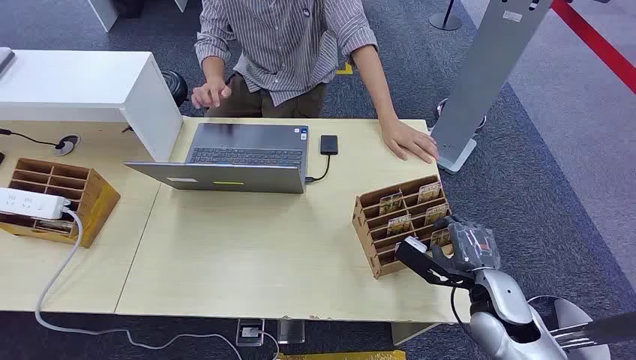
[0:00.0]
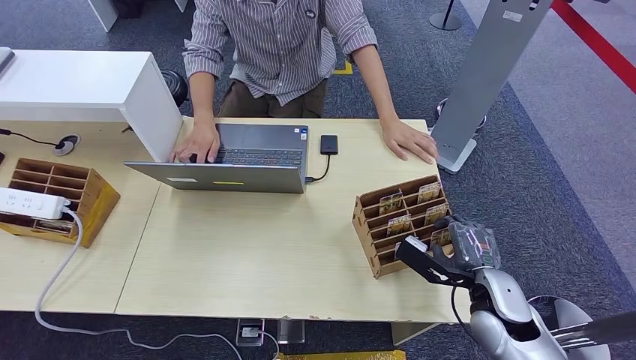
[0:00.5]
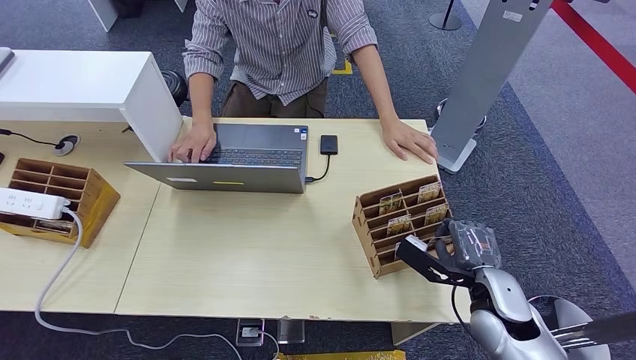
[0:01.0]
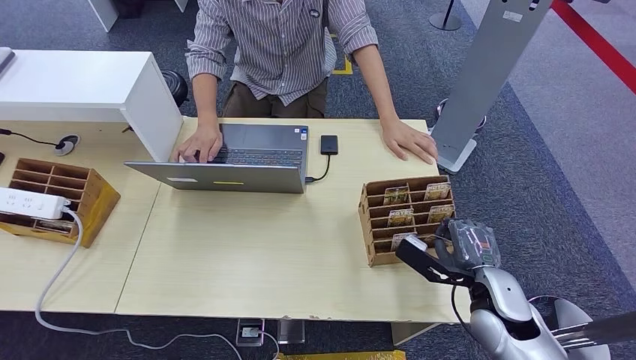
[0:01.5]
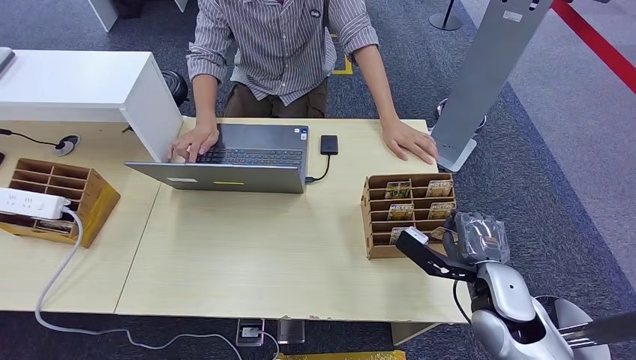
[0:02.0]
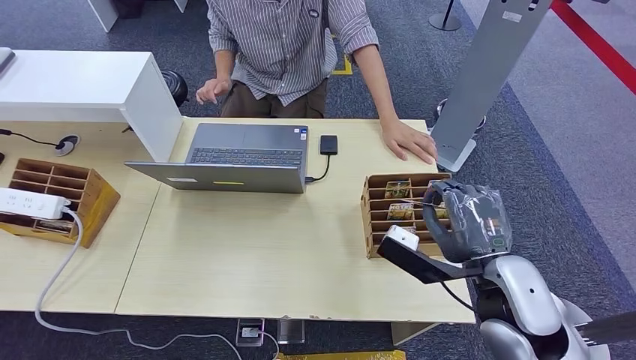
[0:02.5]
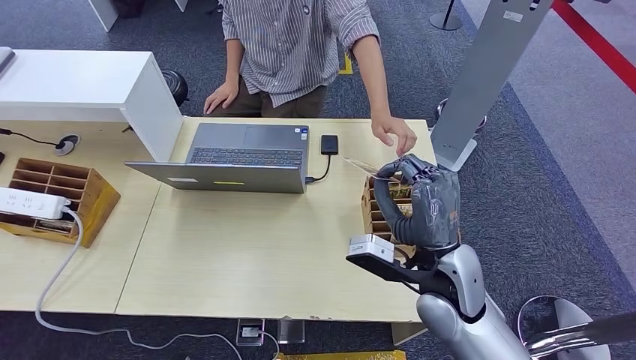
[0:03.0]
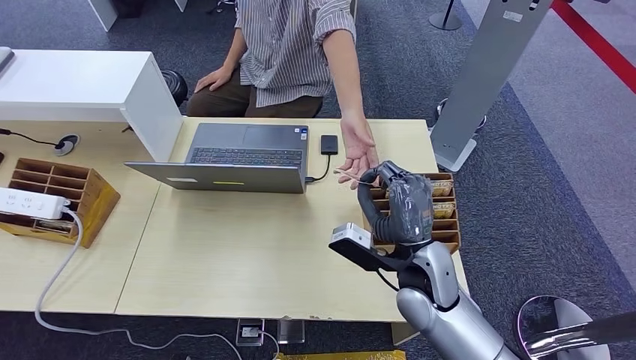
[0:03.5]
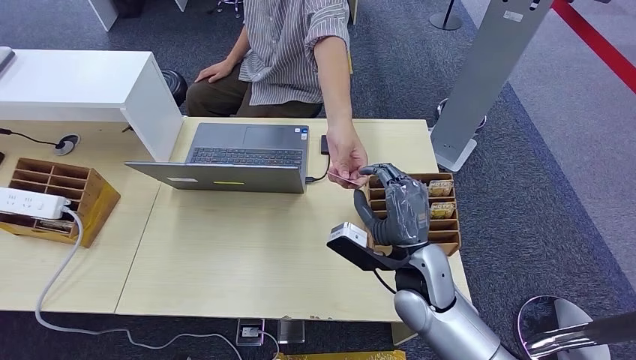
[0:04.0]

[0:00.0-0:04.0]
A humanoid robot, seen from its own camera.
Step, 0:00.0 to 0:02.0: Pick up the key card from the card box.
Step, 0:03.5 to 0:04.0: Hand the key card to the target.
0:02.0 to 0:04.0: The right hand is displaced to the left by some 15 cm.

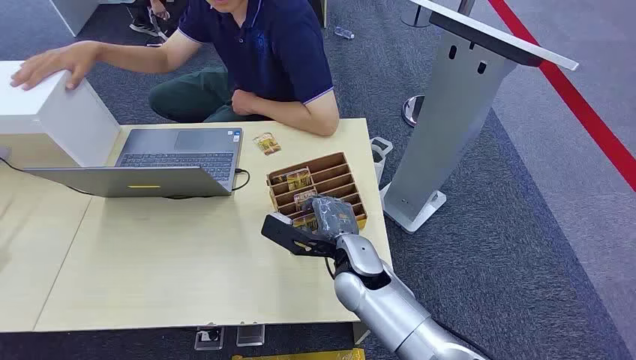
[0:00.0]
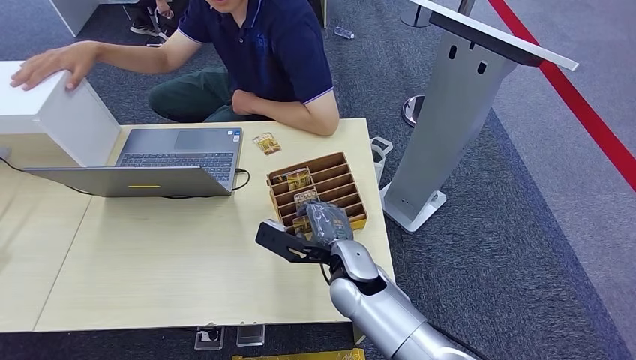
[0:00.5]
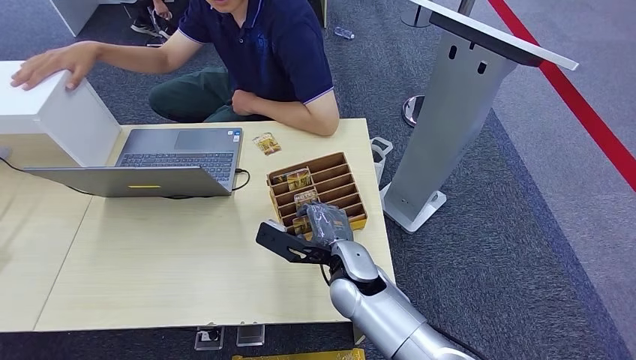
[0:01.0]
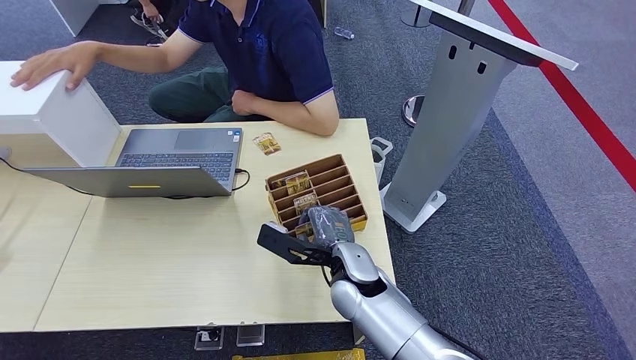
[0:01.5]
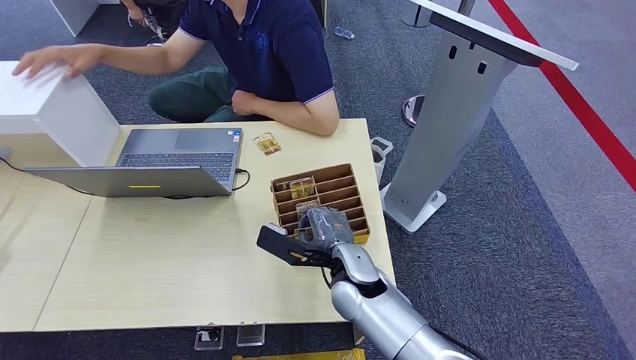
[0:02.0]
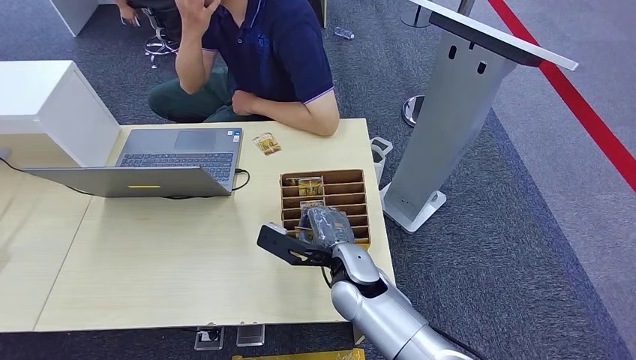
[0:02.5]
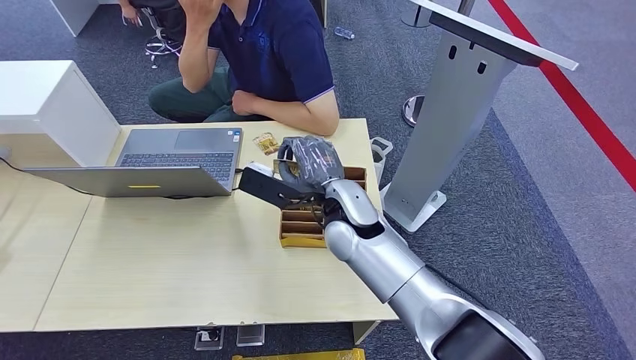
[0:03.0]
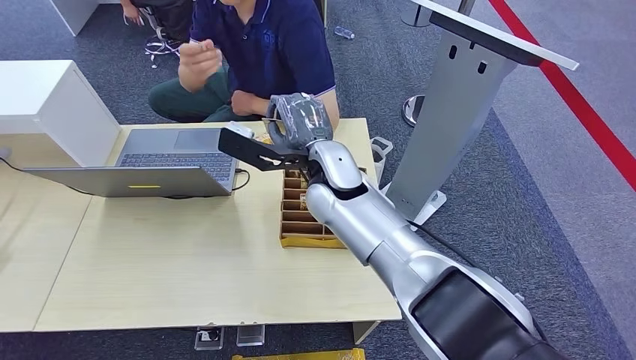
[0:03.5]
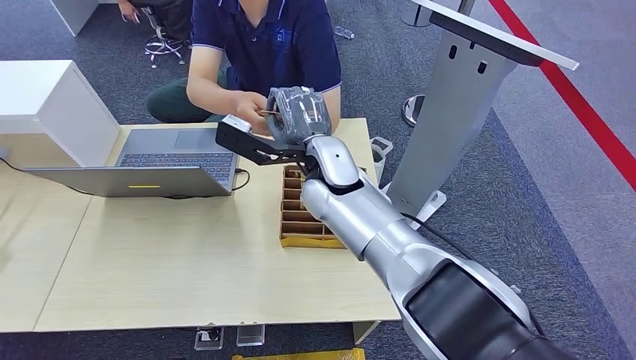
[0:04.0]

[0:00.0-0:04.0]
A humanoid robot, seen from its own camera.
Step, 0:00.0 to 0:03.0: Pick up the key card from the card box.
Step, 0:03.5 to 0:04.0: Hand the key card to the target.
0:02.0 to 0:04.0: The right hand moves upward and forward, roughly 20 cm.

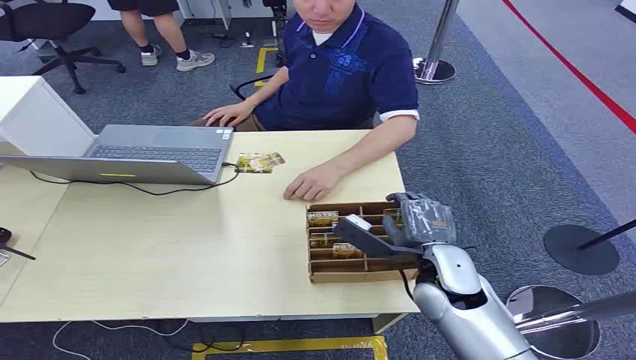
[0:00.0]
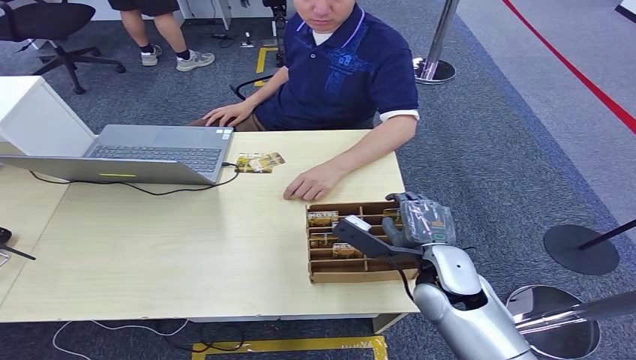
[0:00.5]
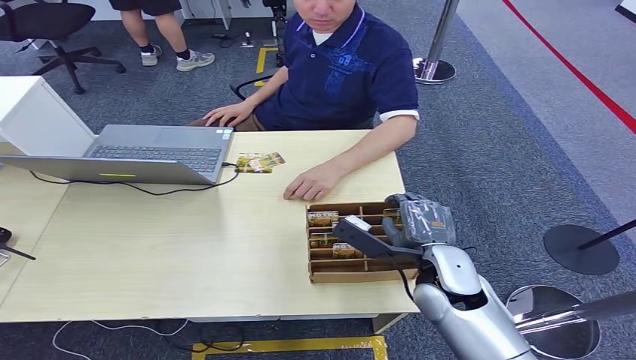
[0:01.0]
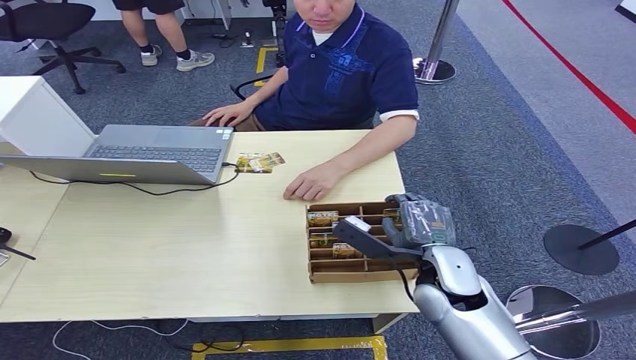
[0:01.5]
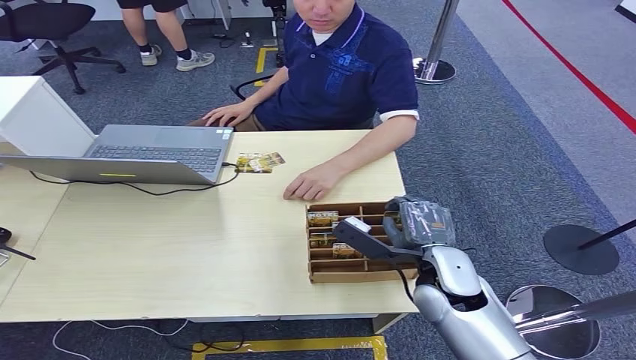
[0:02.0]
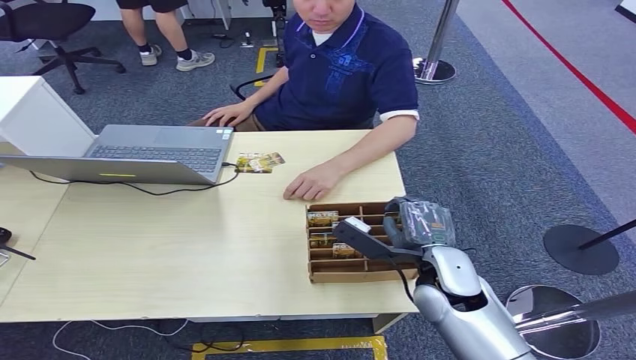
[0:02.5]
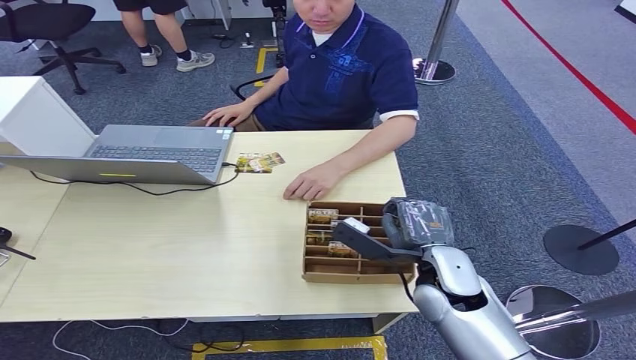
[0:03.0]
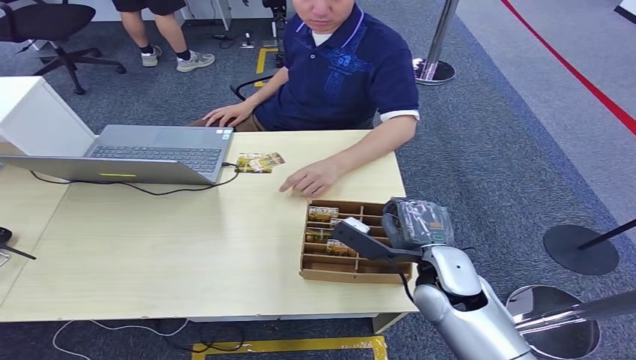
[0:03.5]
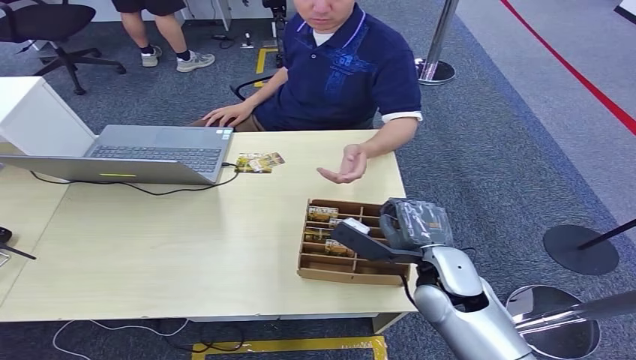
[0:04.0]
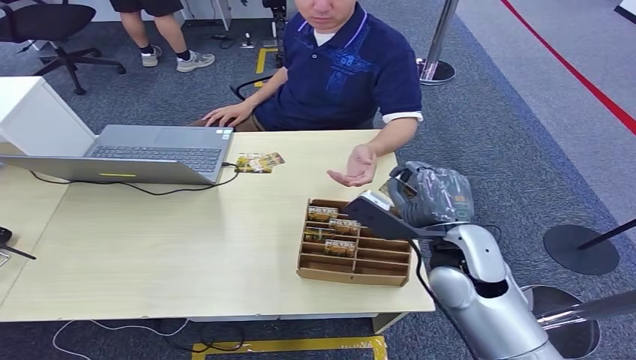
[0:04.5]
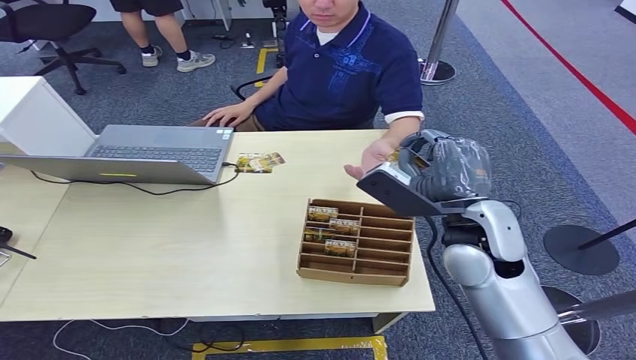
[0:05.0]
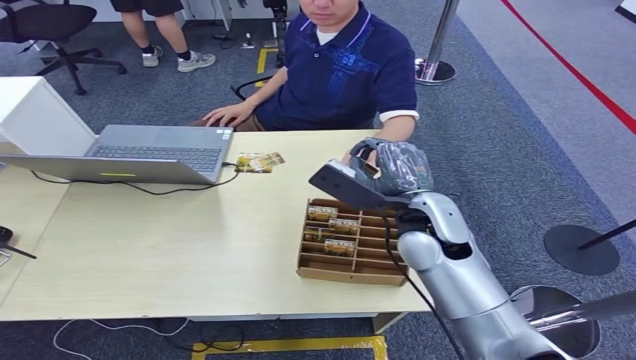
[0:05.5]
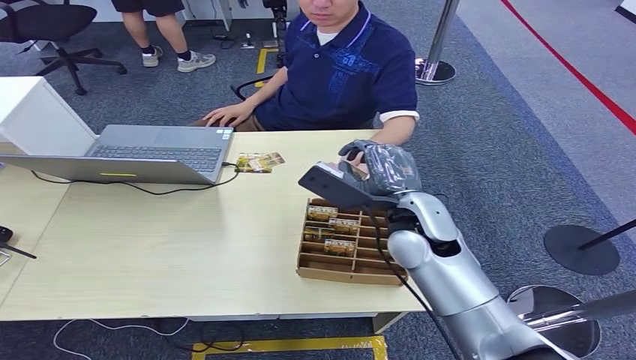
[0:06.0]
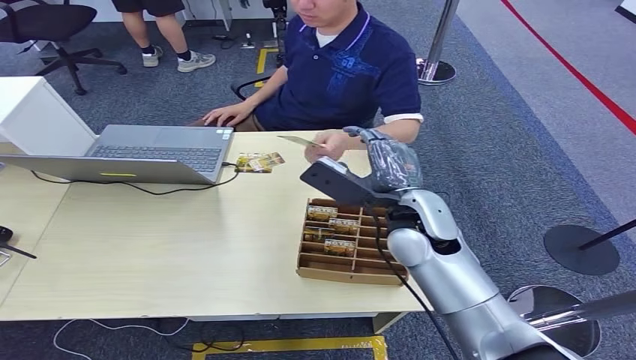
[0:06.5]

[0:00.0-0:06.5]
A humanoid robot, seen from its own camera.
Step, 0:00.0 to 0:04.0: Pick up the key card from the card box.
Step, 0:04.5 to 0:06.5: Hand the key card to the target.
0:02.0 to 0:04.5: The right hand moves upward, roughly 5 cm.
0:04.5 to 0:06.5: The right hand goes some 5 cm forward.
